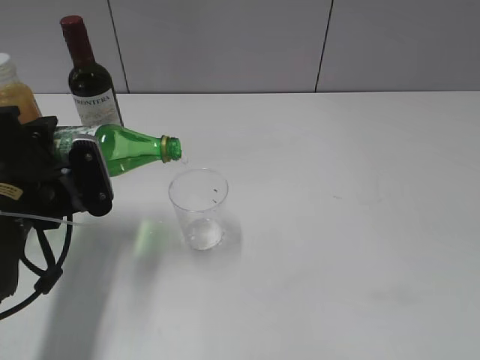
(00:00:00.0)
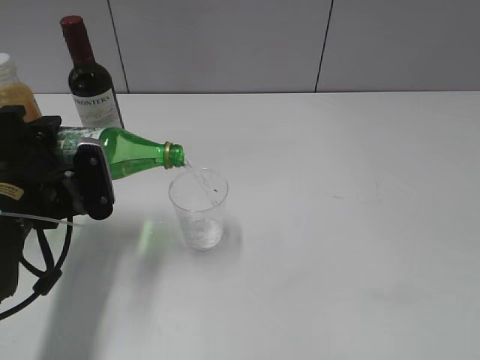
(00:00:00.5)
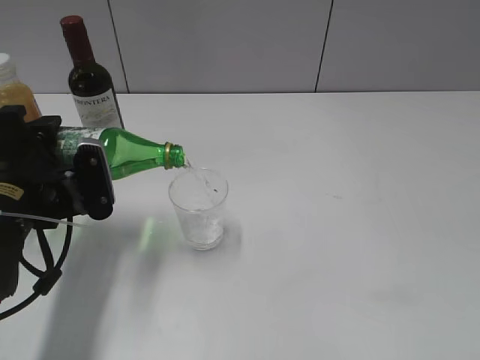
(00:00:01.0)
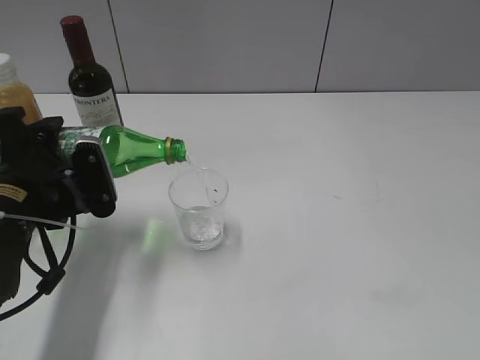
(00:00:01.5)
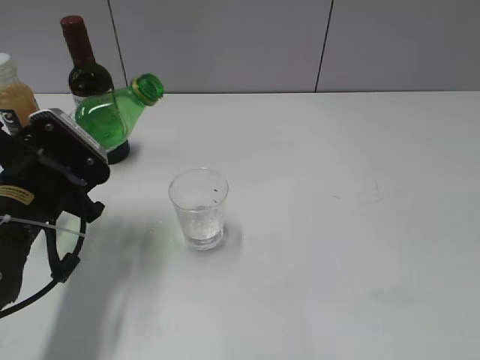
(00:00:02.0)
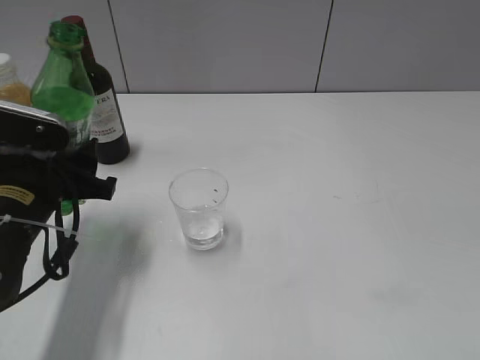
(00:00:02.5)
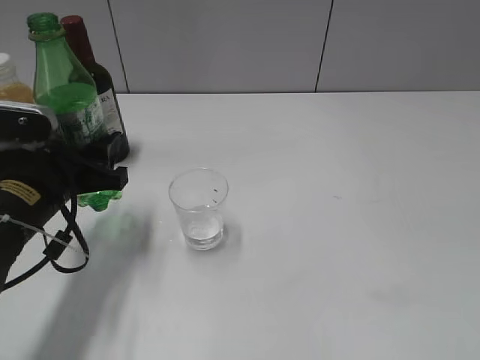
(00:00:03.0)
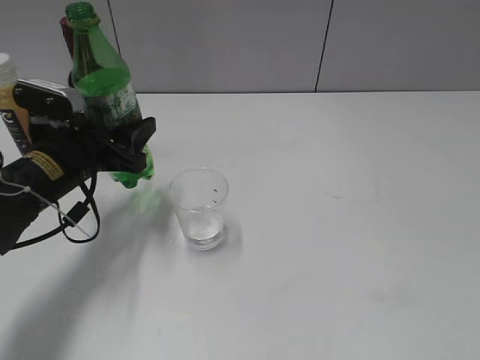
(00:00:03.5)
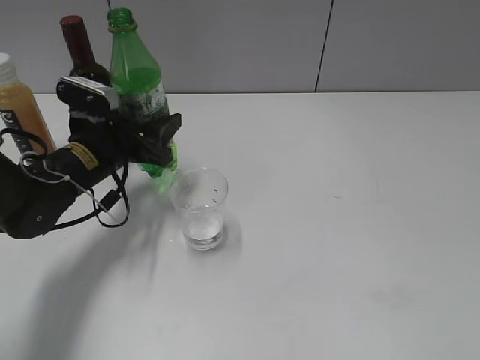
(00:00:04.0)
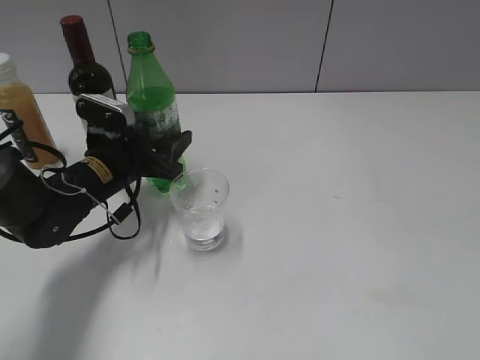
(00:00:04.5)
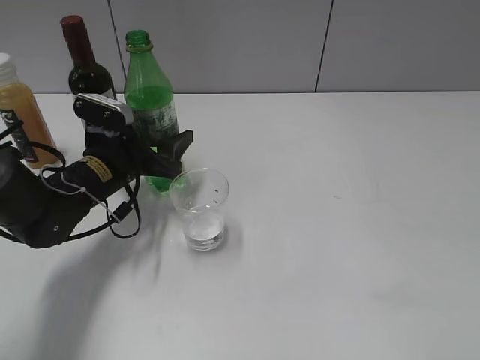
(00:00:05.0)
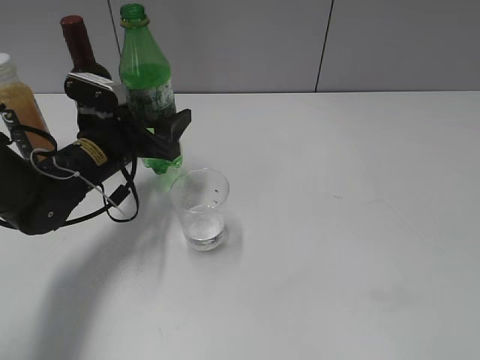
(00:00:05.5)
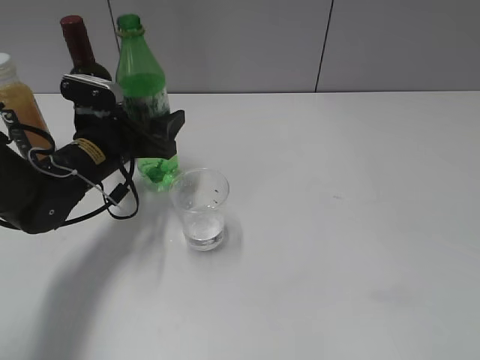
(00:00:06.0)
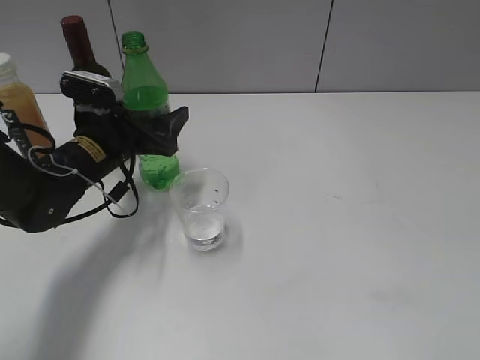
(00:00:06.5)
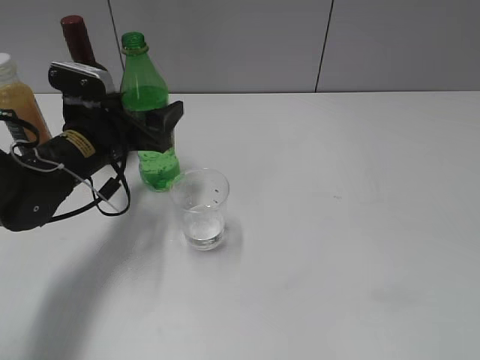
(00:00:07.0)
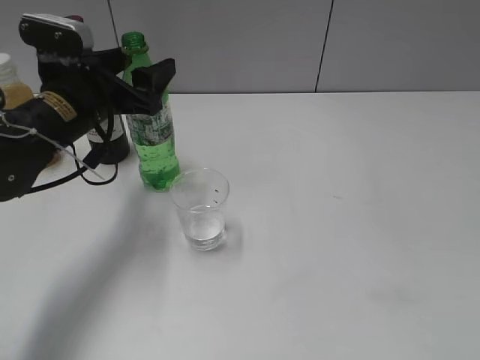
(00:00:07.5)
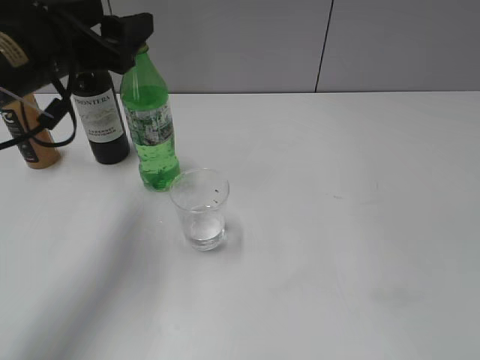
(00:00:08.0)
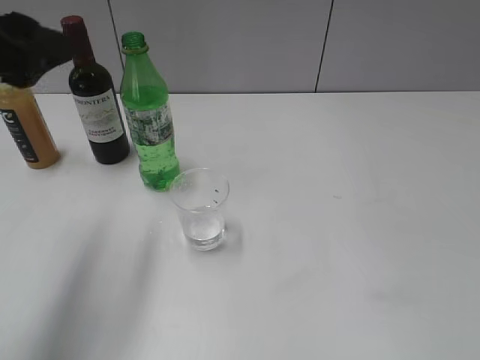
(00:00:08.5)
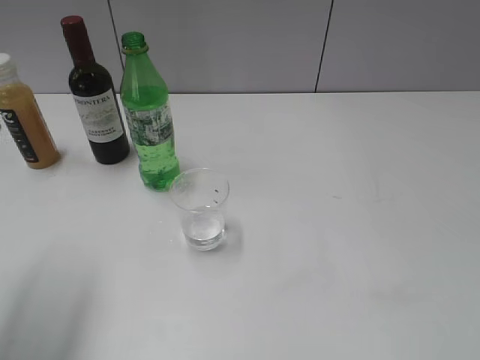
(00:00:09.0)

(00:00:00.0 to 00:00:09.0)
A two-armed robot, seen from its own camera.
Step, 00:00:02.0 - 00:00:07.5: Place the sprite bottle on the table with left gripper.
00:00:02.0 - 00:00:04.5: The left gripper heads forward and downward, covering about 10 cm.
00:00:04.5 - 00:00:07.0: The left gripper opens up.
00:00:07.0 - 00:00:09.0: The left gripper is displaced upward, backward and to the left by approximately 25 cm.

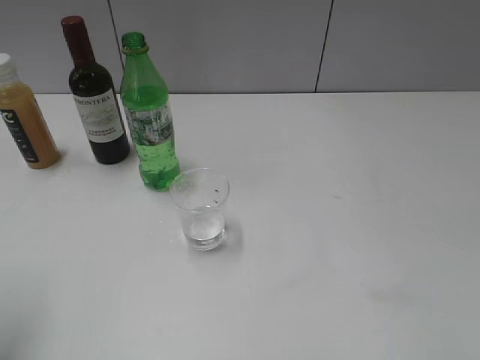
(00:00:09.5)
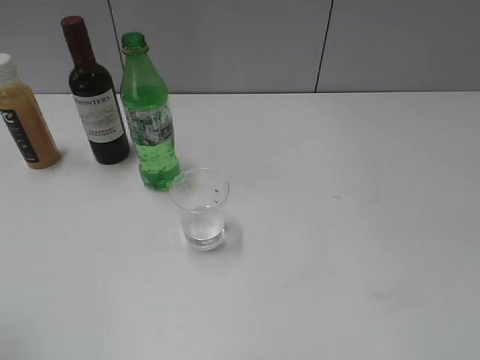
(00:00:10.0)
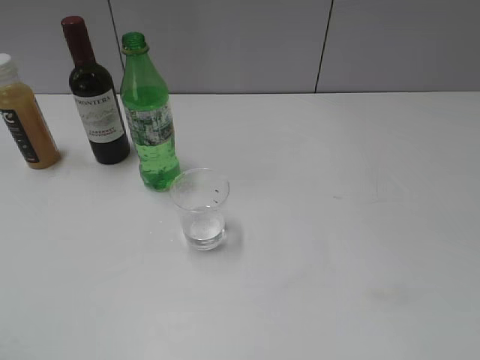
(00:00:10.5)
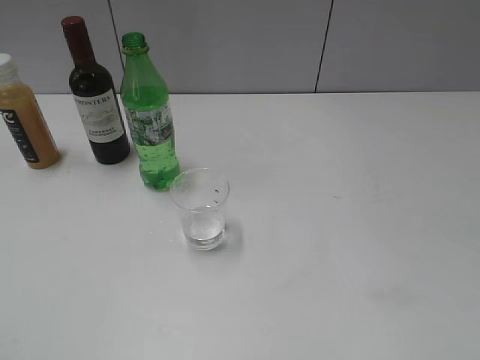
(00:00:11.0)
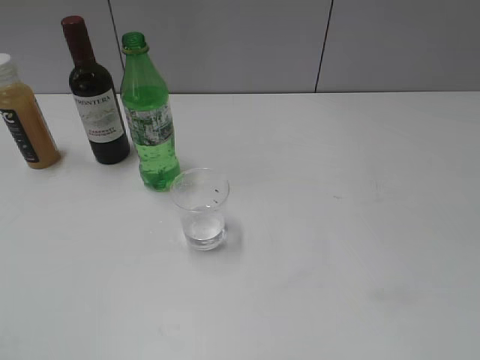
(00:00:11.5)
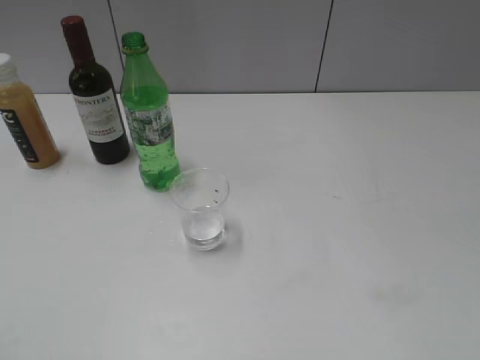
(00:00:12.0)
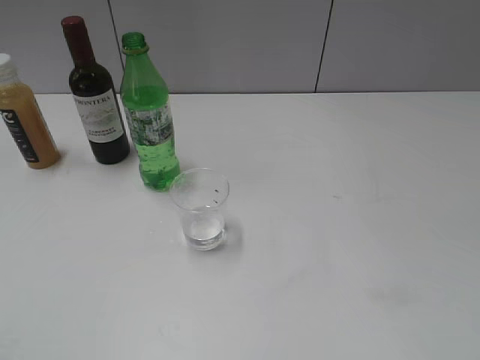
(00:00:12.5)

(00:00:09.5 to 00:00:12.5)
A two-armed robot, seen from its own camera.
00:00:09.5 - 00:00:11.0: The left gripper travels backward by roughly 15 cm.

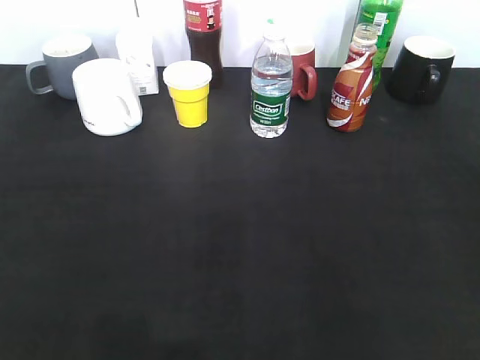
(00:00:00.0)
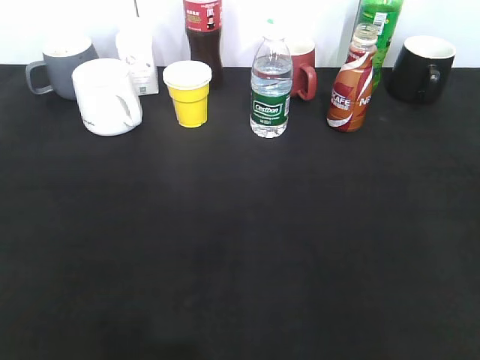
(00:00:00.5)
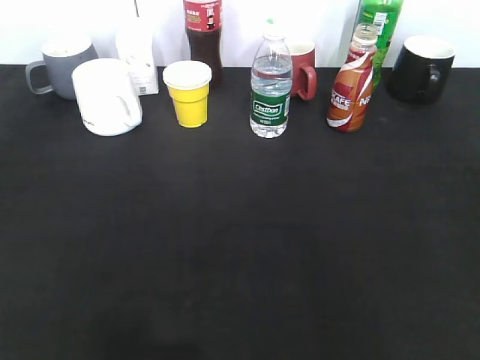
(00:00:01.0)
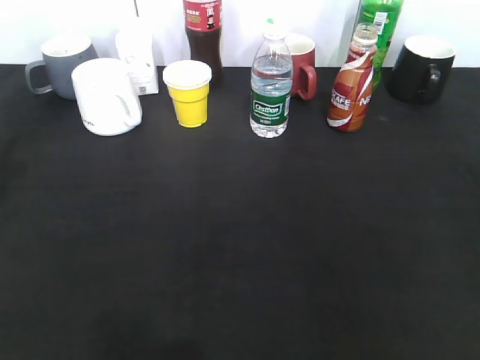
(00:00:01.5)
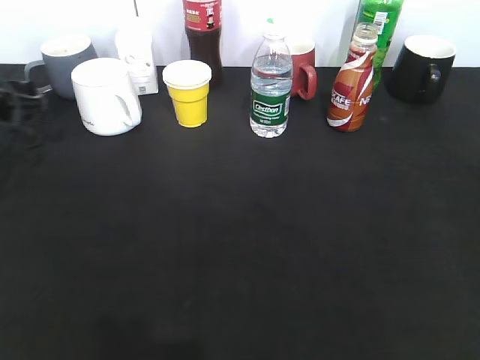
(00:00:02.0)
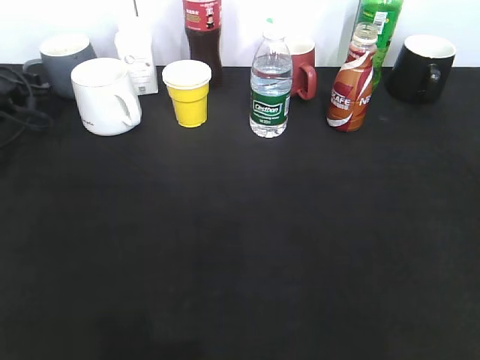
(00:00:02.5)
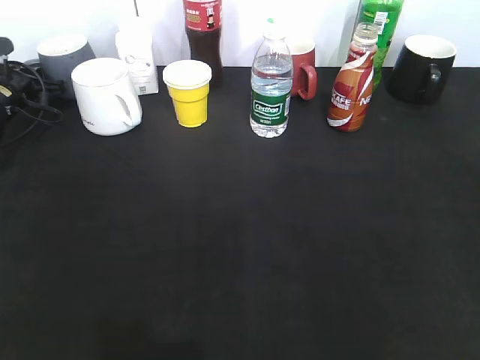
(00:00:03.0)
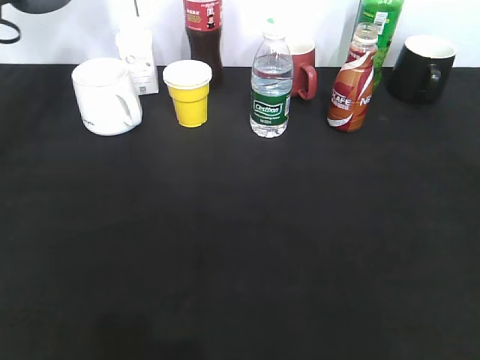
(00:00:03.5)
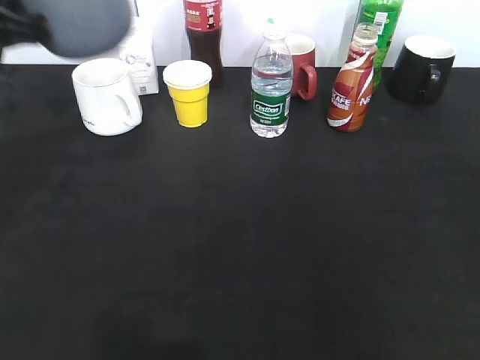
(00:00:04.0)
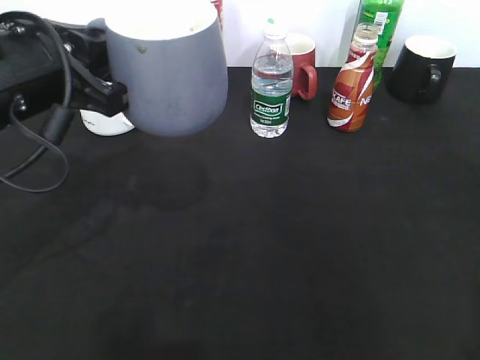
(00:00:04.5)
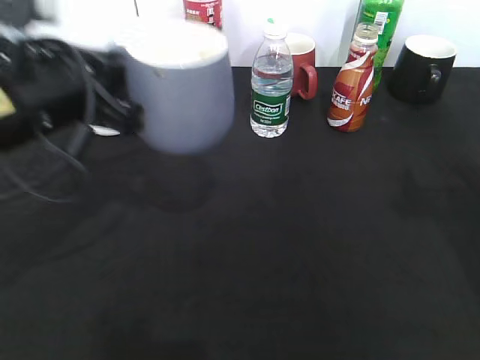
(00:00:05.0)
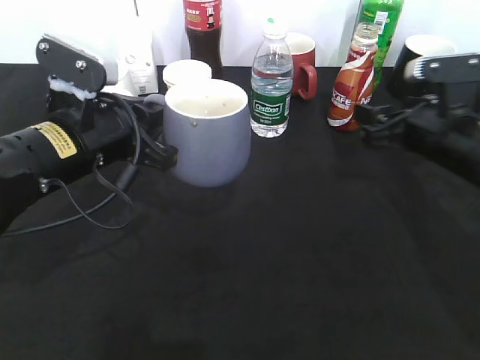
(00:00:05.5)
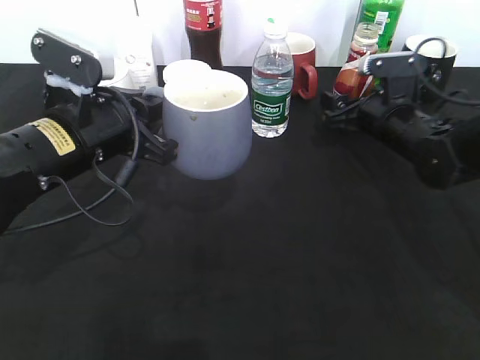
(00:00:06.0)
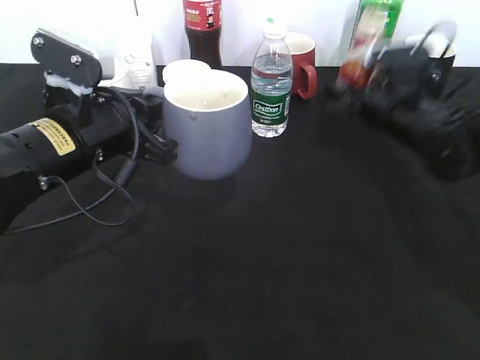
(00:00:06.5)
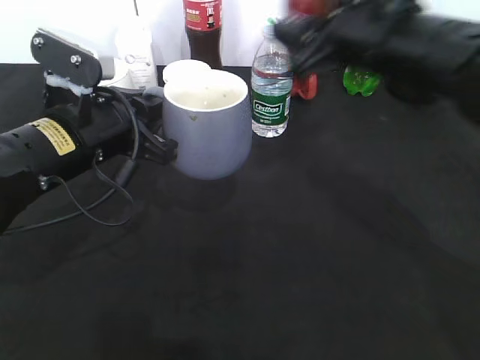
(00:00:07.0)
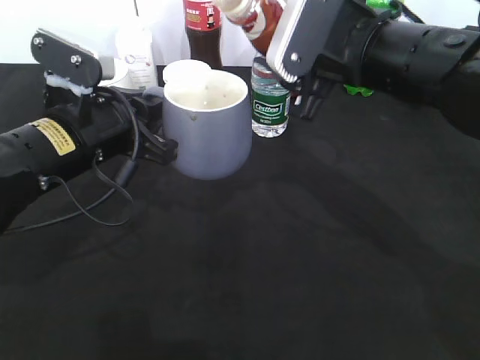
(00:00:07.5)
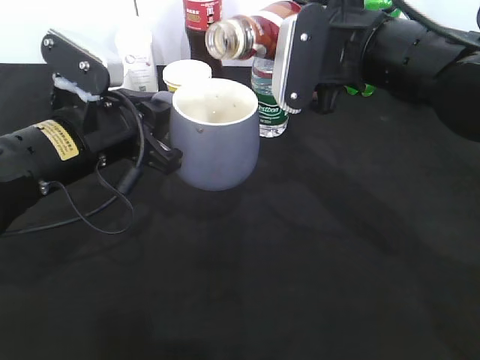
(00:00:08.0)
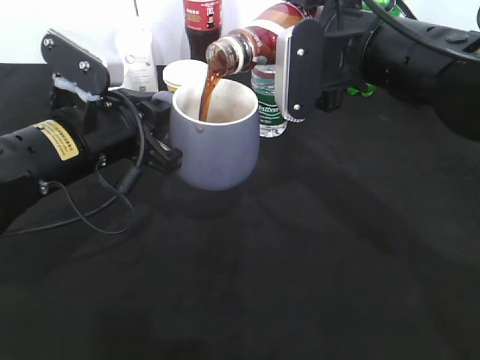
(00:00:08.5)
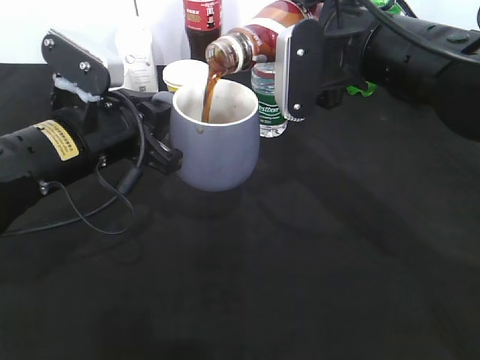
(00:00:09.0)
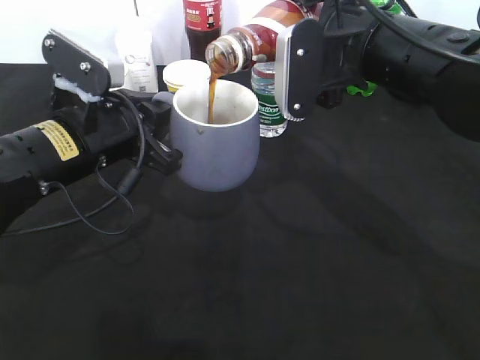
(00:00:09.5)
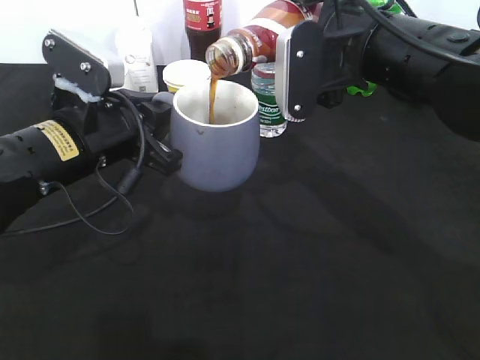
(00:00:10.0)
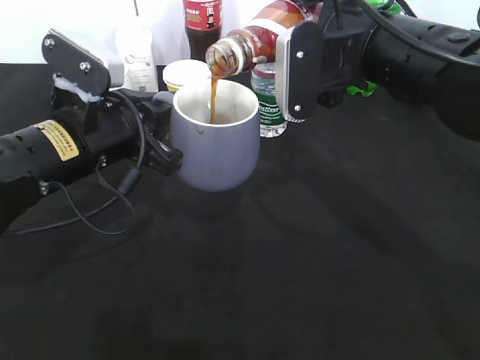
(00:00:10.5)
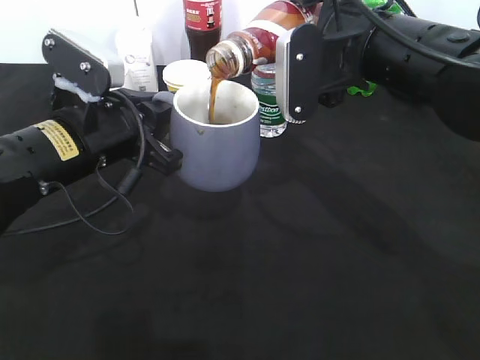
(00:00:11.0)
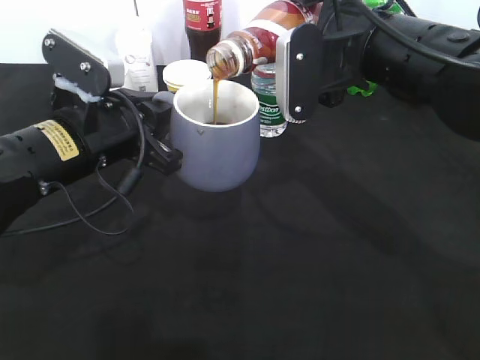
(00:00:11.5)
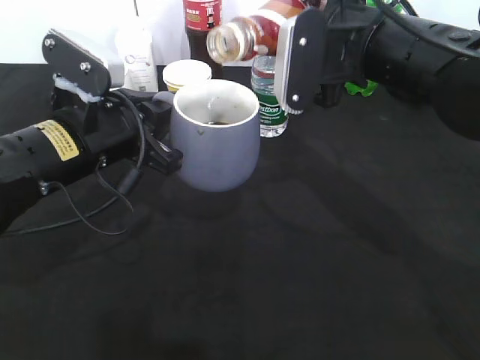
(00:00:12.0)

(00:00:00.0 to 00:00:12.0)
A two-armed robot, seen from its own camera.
Step, 00:00:00.0 - 00:00:02.5: Grasp the grey cup with left gripper.
Step, 00:00:03.5 - 00:00:04.0: Lift the grey cup with left gripper.
Step, 00:00:04.5 - 00:00:06.0: Grasp the bottle with coffee with right gripper.
00:00:00.0 - 00:00:02.0: The left gripper goes roughly 40 cm forward.
00:00:02.0 - 00:00:04.0: The left gripper moves upward, backward and to the right, roughly 20 cm, and closes up.
00:00:04.0 - 00:00:06.0: The left gripper heads downward and to the right, covering roughly 10 cm. Meanwhile the right gripper moves forward and downward, about 40 cm, and opens its fingers.
00:00:06.0 - 00:00:08.0: The right gripper shifts some 20 cm upward, backward and to the left, and closes up.
00:00:08.0 - 00:00:12.0: The grippers stay close to where they were, moving slightly.

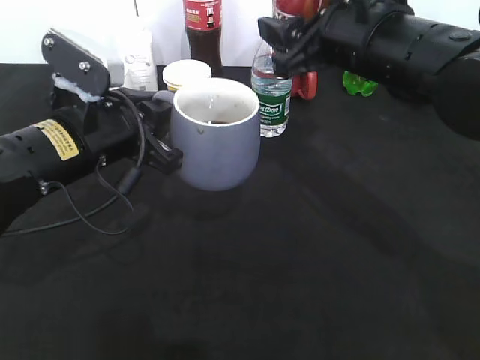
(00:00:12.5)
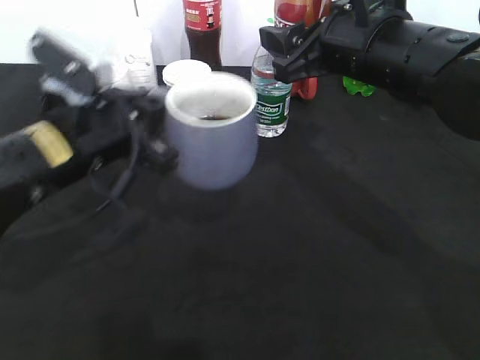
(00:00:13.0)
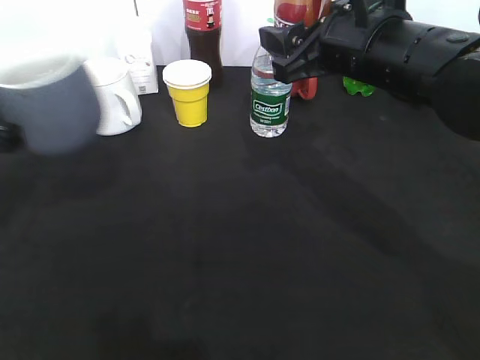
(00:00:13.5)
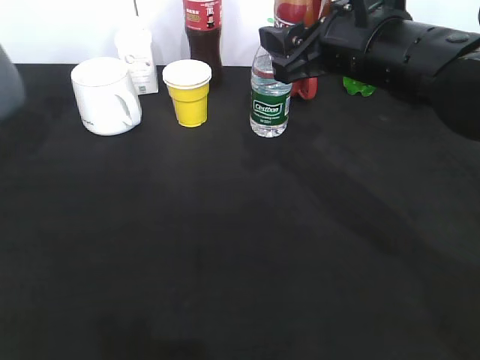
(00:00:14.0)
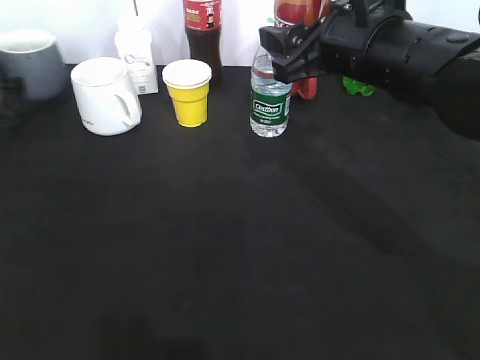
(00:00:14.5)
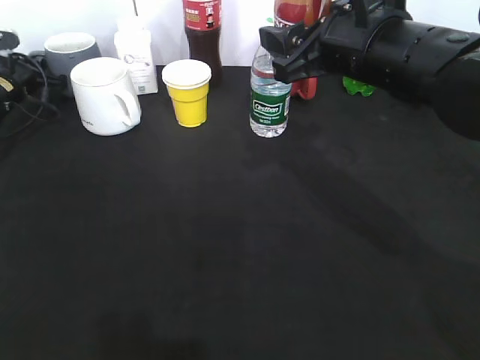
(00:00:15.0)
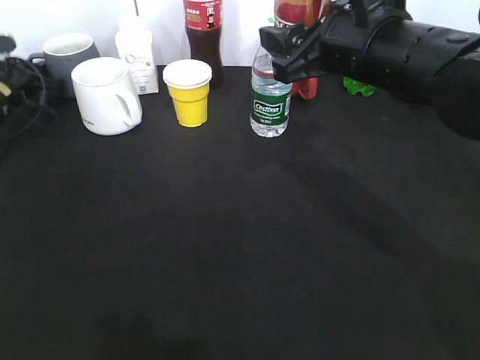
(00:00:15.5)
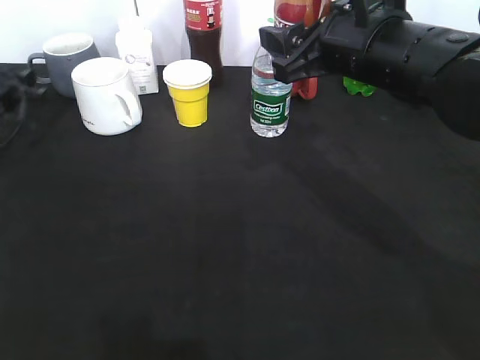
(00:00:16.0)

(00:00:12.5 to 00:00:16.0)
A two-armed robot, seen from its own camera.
00:00:12.5 - 00:00:14.5: The left gripper goes about 30 cm to the left and forward.
00:00:14.5 - 00:00:16.0: The left gripper opens its fingers.
